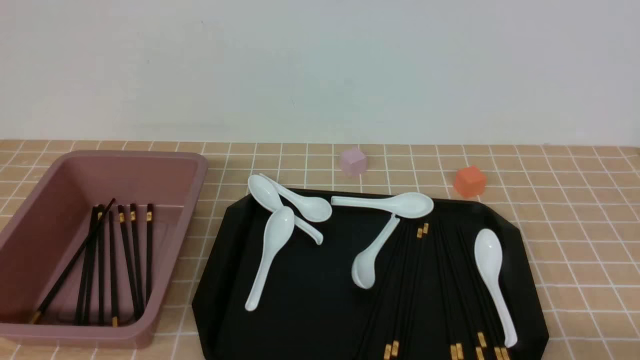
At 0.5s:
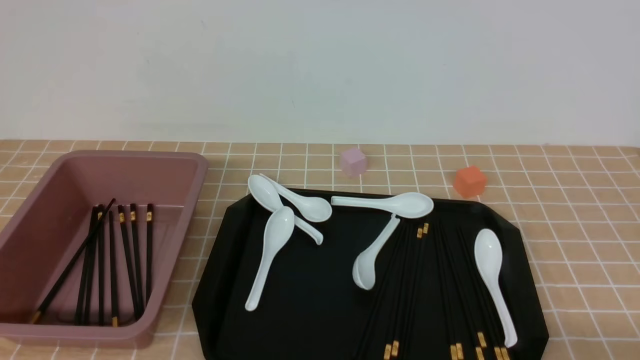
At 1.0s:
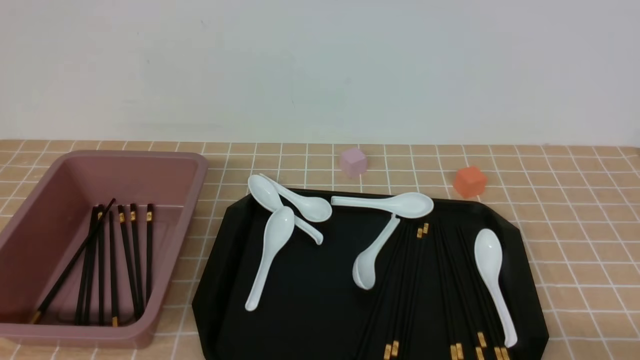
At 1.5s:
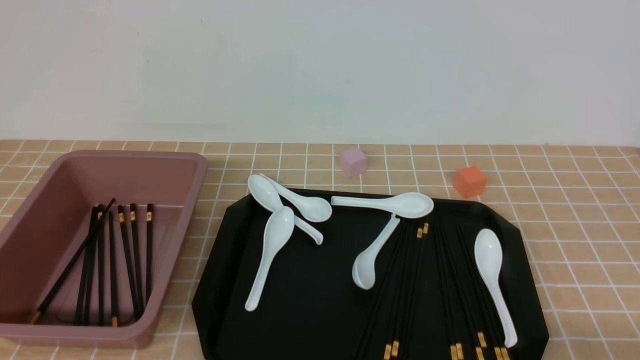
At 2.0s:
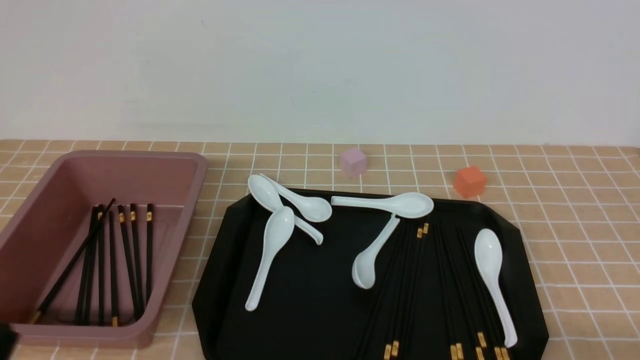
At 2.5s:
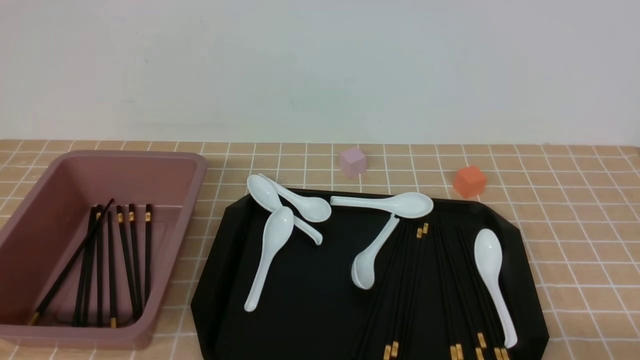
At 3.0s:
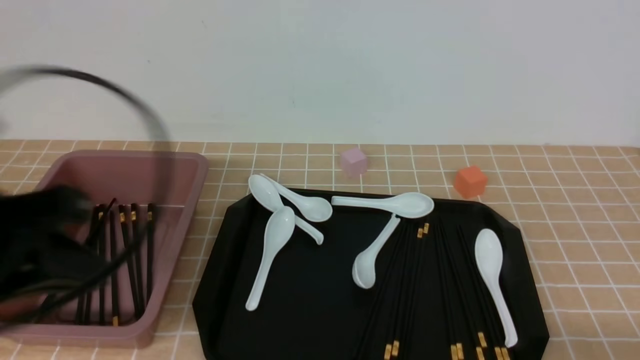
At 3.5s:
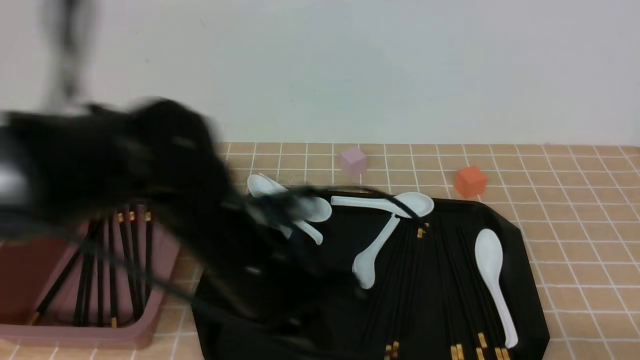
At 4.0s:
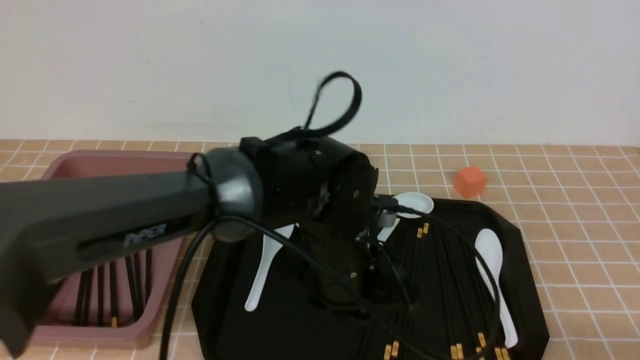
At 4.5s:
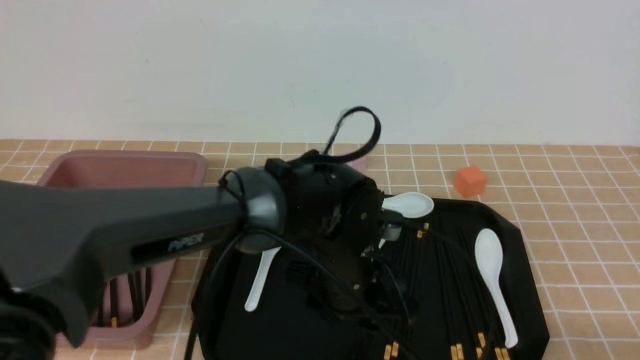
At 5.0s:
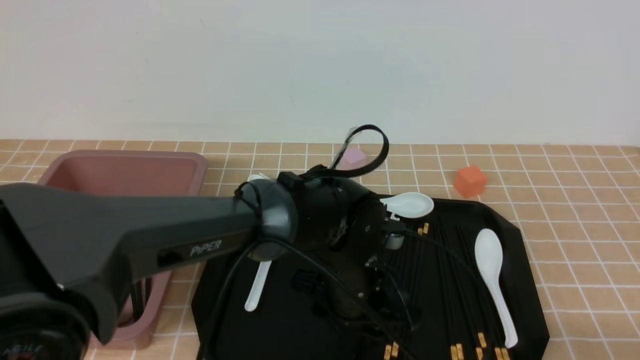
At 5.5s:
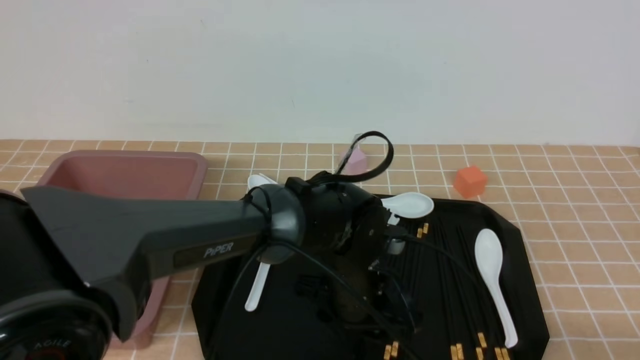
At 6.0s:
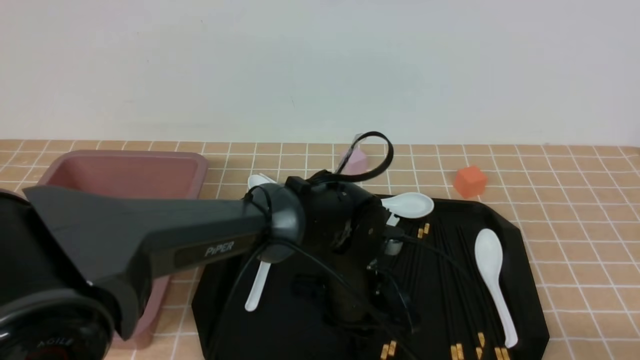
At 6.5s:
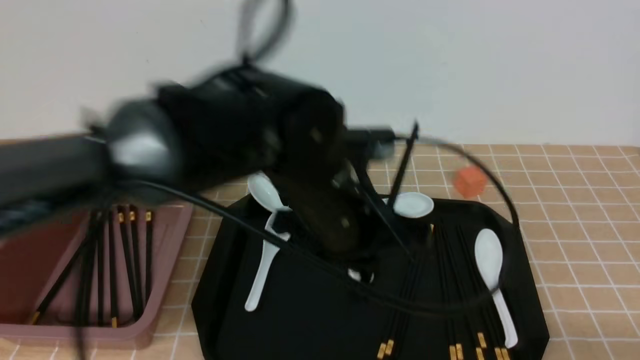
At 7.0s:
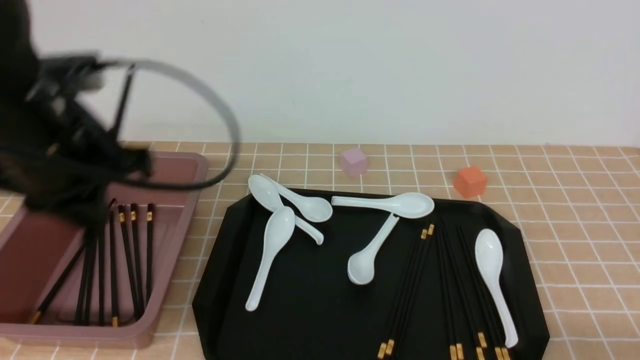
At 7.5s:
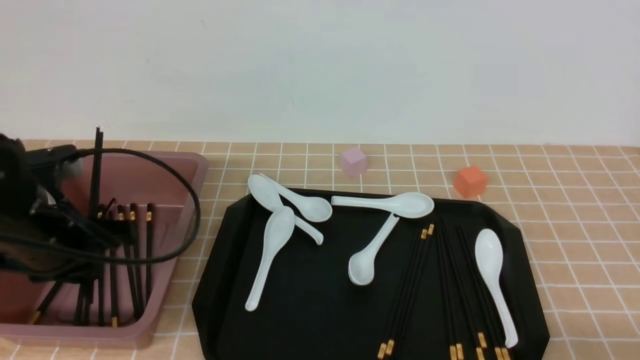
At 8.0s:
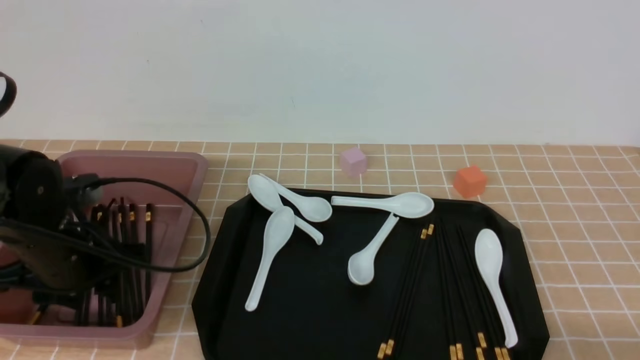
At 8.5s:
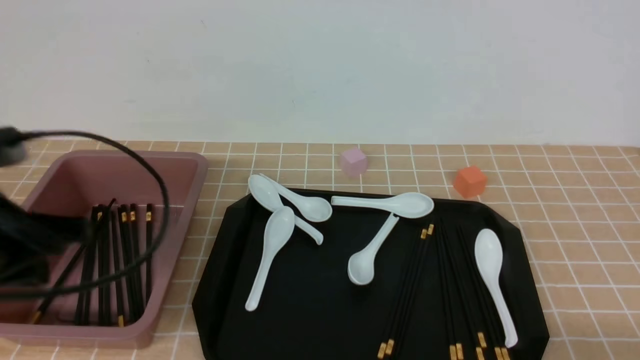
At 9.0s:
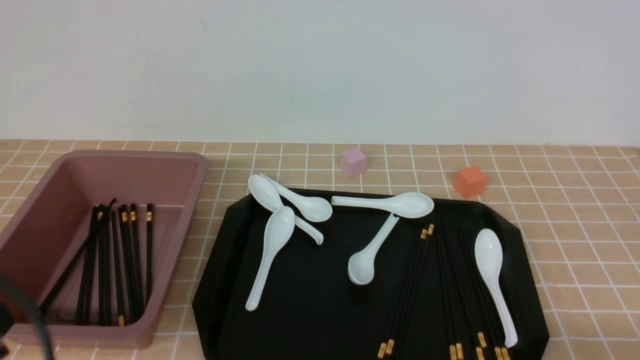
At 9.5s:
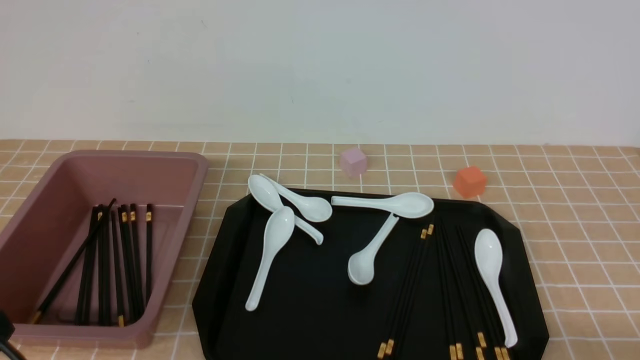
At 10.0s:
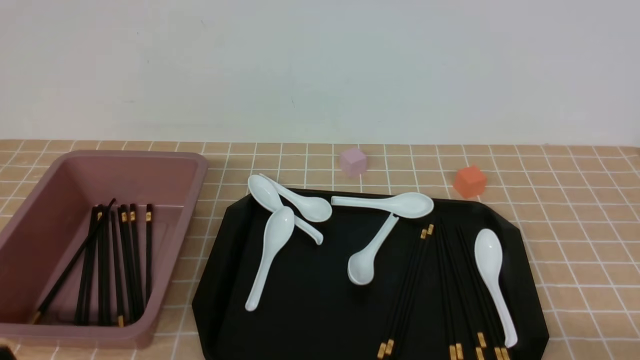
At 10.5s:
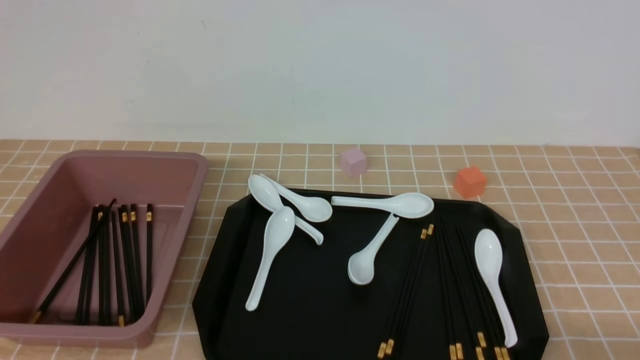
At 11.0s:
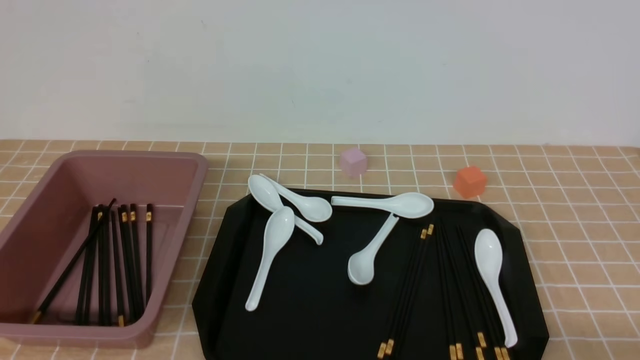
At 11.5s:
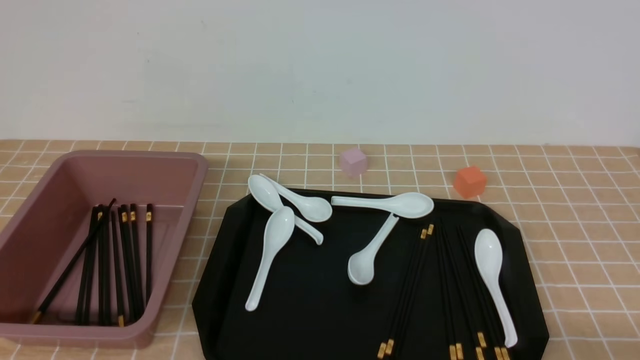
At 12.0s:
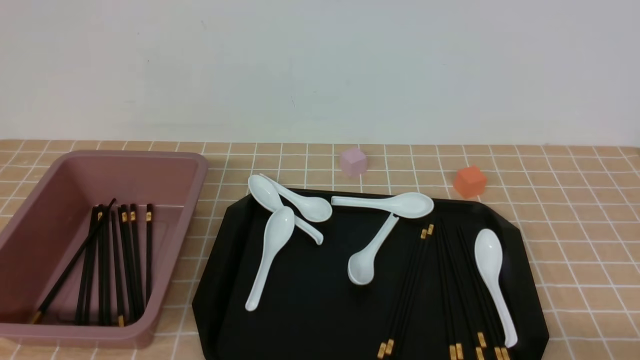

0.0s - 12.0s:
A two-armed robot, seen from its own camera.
Step, 0.0s - 6.5s: use the left arm to grab a pair of chopsticks.
Step, 7.0s - 8.0s: use the left arm to put the chopsticks into the lunch box.
2.0s - 4.0s: The left gripper travels to the right and forward by about 35 cm.
4.0s - 6.0s: The left gripper is displaced downward by about 5 cm, and opens, then closes once more.
6.0s - 8.0s: The left gripper shifts roughly 30 cm to the left, and opens up.
8.0s - 10.0s: The left gripper is displaced backward by some 20 cm, and closes.
